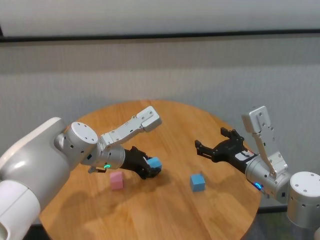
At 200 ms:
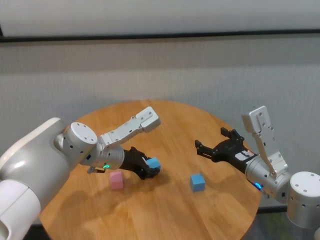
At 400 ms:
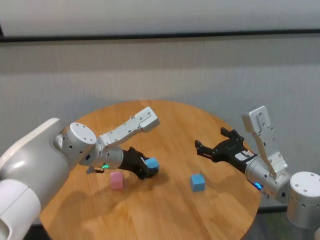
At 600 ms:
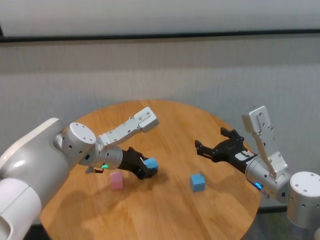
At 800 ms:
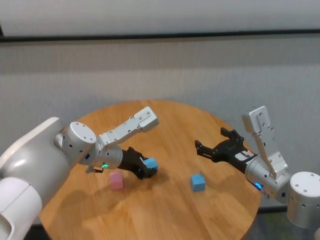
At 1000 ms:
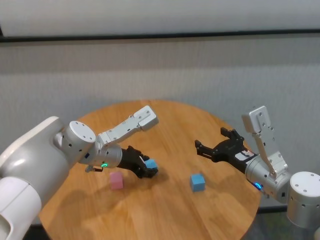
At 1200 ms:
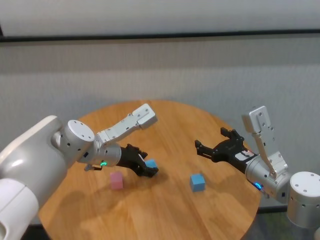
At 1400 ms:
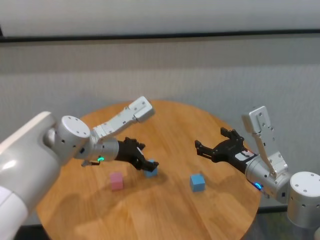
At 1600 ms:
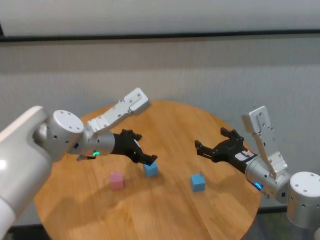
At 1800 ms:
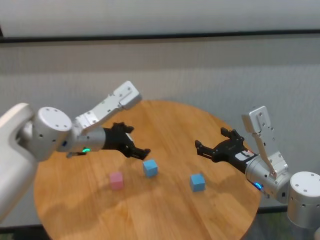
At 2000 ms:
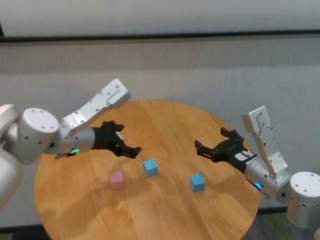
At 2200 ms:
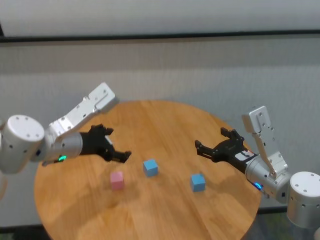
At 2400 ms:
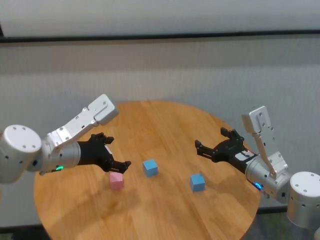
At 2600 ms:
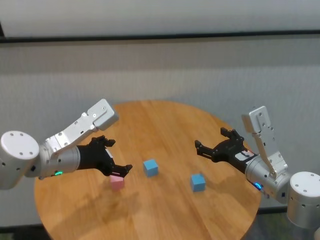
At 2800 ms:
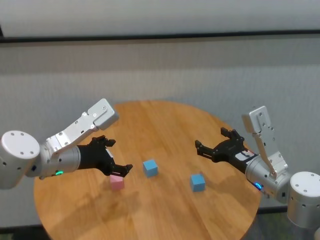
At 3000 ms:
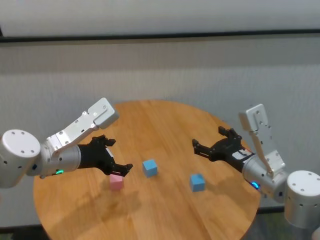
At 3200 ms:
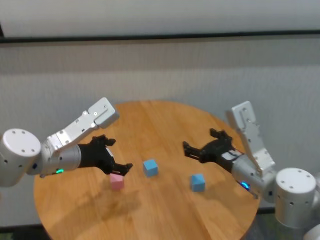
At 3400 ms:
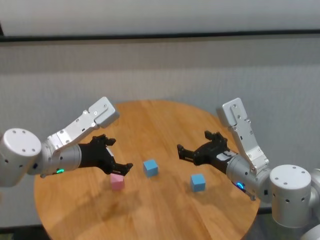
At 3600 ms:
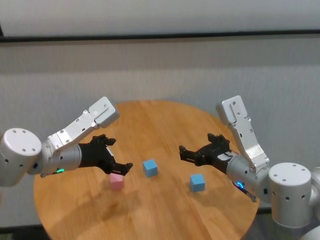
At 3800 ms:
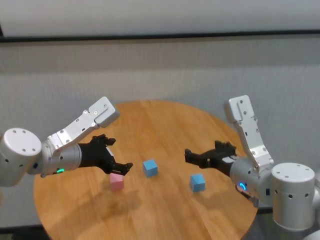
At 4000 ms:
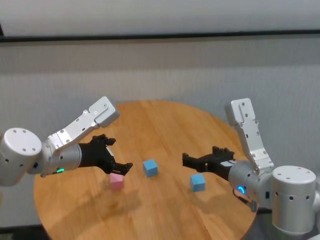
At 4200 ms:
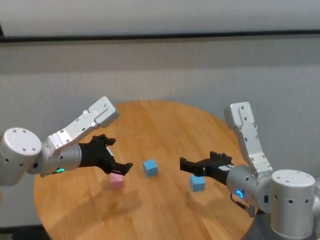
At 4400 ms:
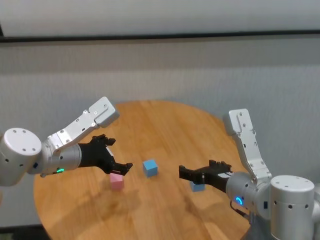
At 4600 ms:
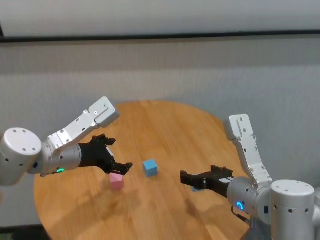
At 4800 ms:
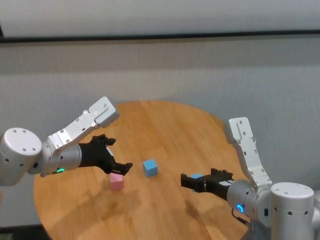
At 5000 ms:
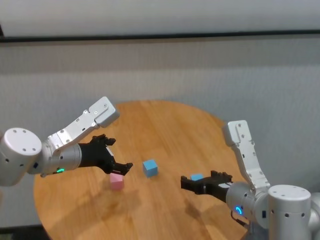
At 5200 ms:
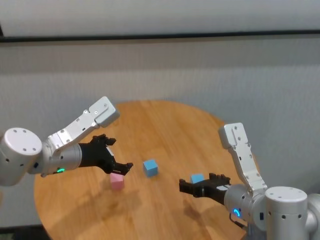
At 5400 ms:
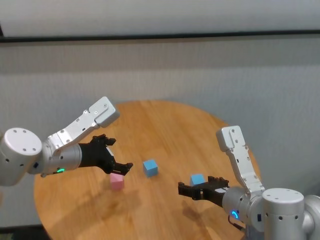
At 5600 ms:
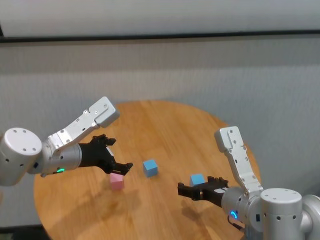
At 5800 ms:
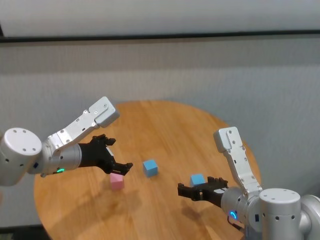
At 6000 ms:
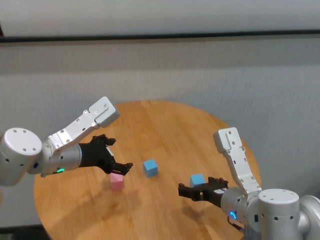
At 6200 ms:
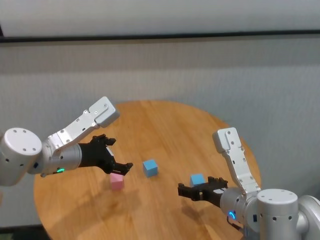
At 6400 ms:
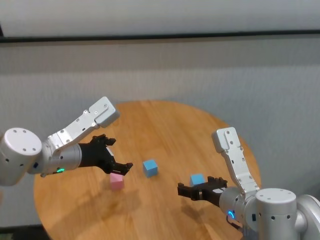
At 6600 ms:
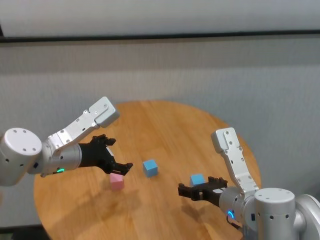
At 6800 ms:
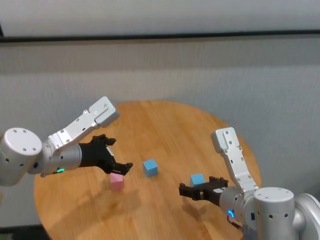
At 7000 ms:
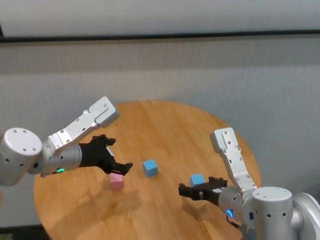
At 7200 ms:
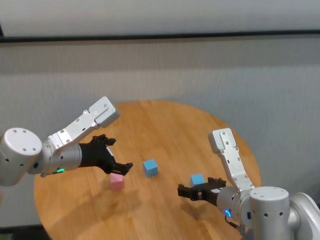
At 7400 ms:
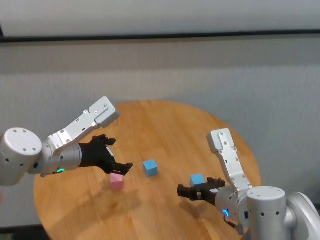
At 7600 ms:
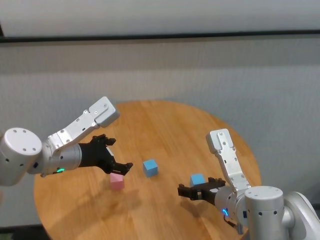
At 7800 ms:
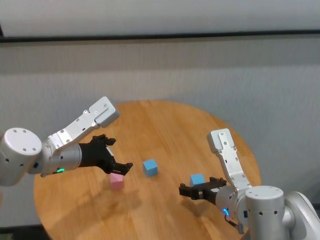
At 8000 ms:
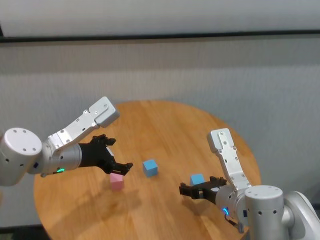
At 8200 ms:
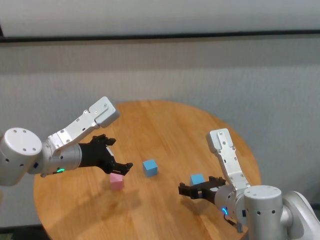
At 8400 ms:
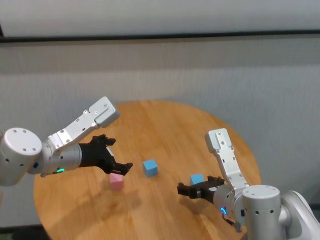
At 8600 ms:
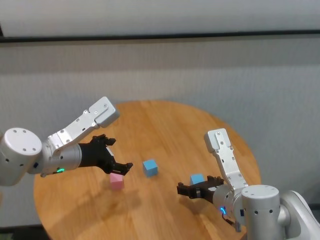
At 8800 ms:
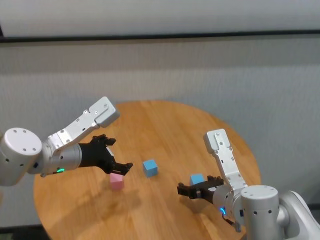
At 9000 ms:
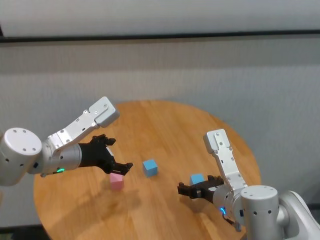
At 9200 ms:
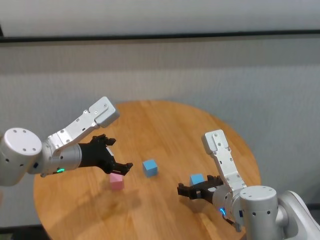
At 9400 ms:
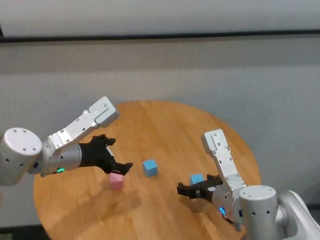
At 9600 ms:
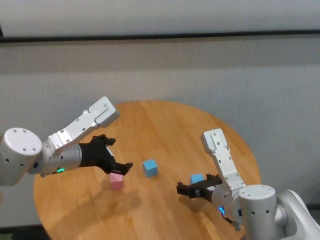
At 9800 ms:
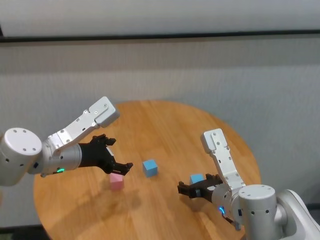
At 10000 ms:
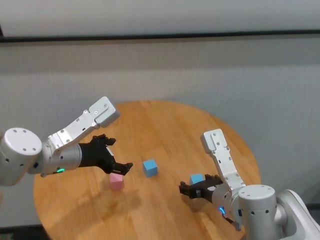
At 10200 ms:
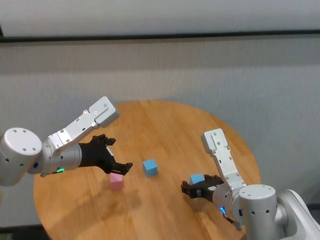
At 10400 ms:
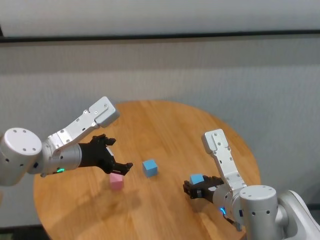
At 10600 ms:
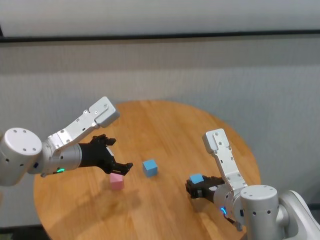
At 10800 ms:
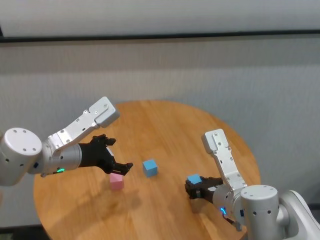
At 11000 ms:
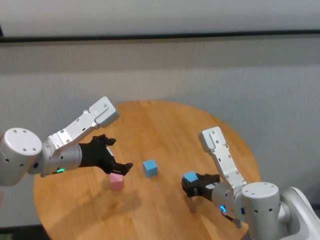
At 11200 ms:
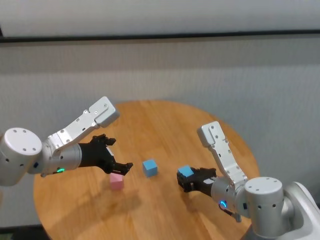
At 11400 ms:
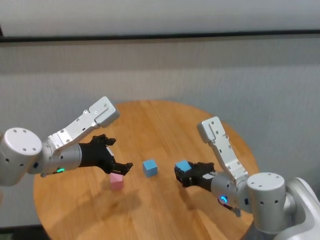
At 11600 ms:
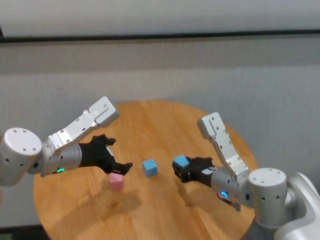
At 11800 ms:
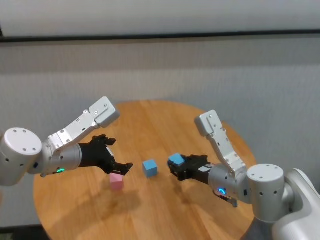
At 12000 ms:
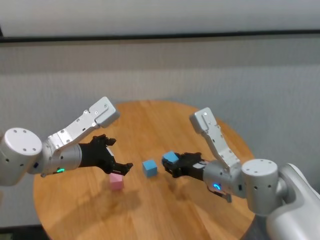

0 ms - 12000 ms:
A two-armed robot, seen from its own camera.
Task of the whole recording: stack building blocks on the table.
Step, 1400 ms - 10600 ms: Grasp the blue building block with right gripper.

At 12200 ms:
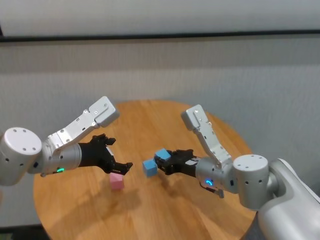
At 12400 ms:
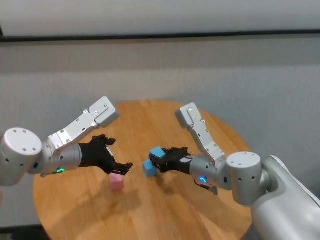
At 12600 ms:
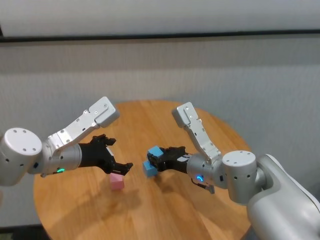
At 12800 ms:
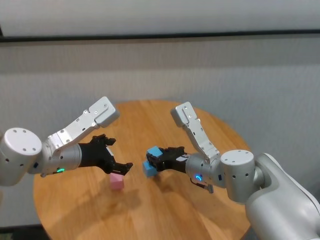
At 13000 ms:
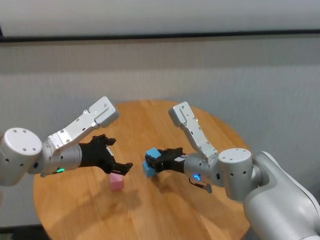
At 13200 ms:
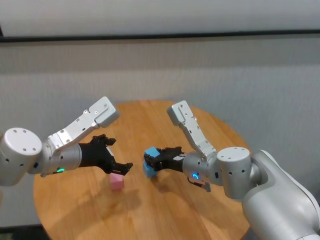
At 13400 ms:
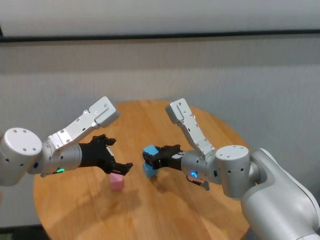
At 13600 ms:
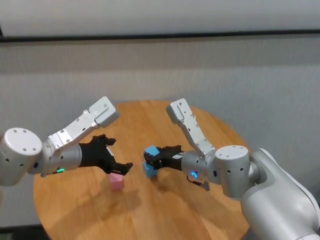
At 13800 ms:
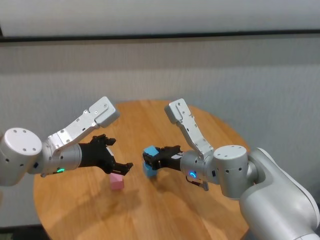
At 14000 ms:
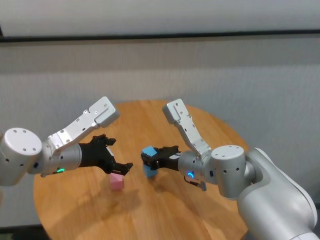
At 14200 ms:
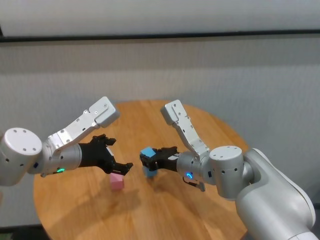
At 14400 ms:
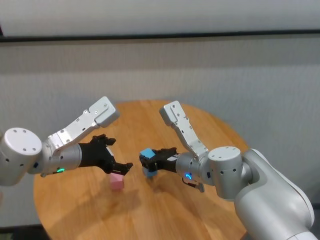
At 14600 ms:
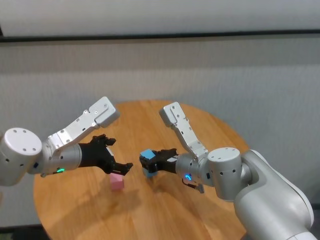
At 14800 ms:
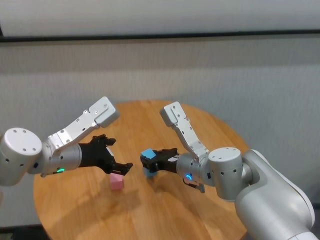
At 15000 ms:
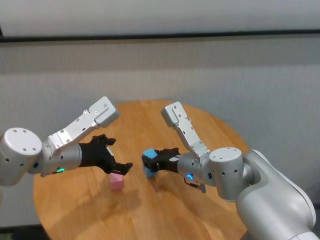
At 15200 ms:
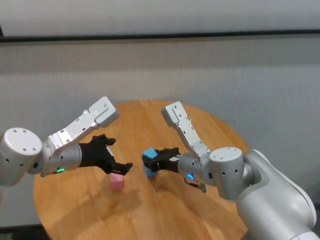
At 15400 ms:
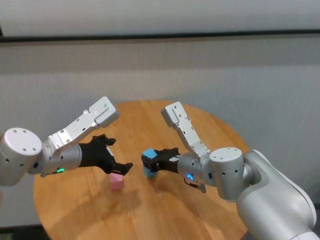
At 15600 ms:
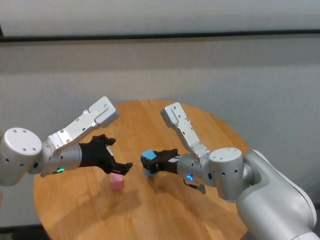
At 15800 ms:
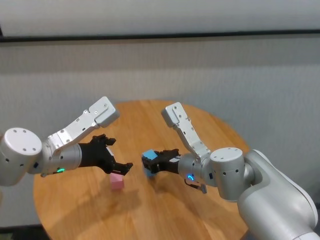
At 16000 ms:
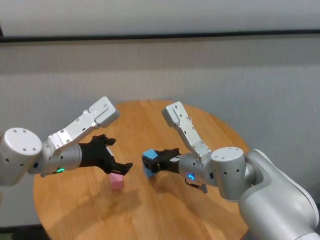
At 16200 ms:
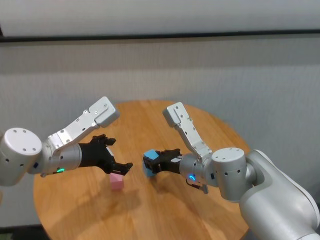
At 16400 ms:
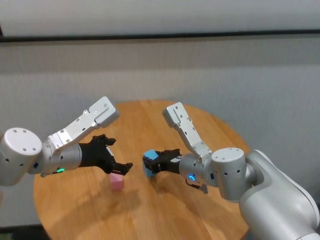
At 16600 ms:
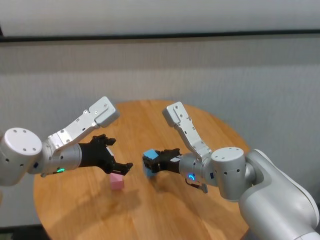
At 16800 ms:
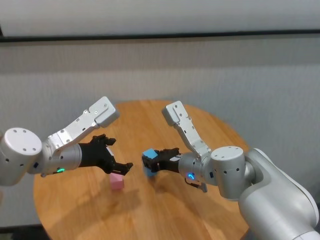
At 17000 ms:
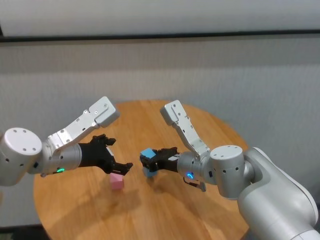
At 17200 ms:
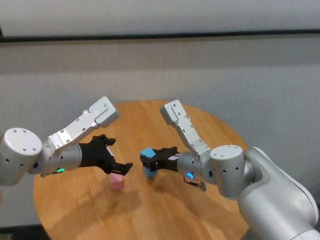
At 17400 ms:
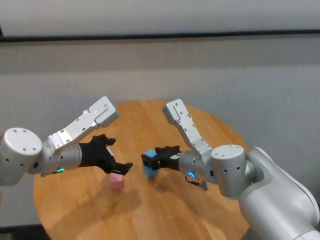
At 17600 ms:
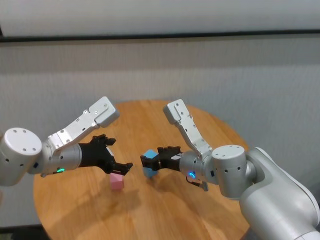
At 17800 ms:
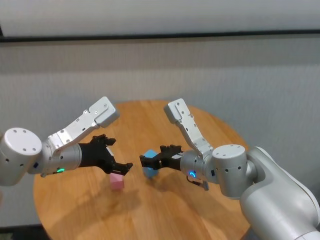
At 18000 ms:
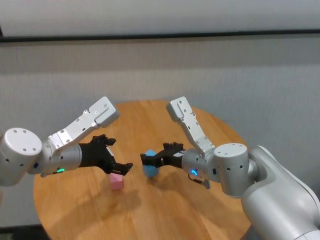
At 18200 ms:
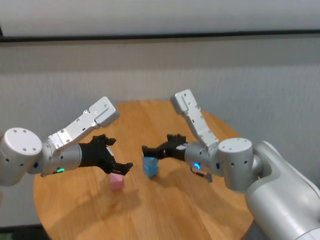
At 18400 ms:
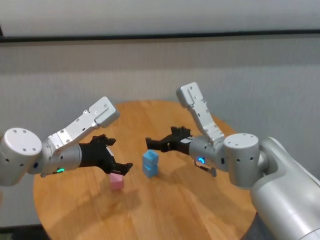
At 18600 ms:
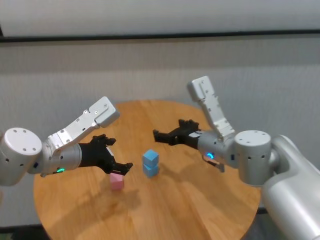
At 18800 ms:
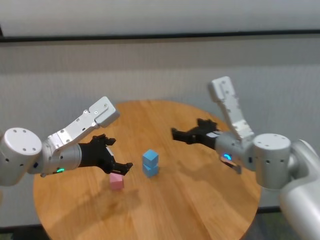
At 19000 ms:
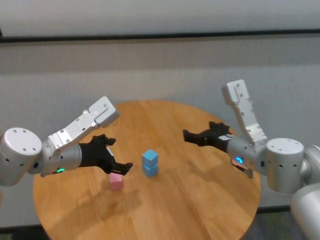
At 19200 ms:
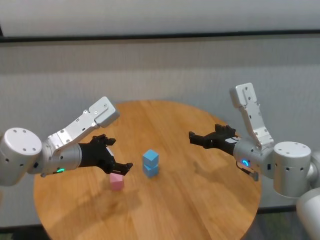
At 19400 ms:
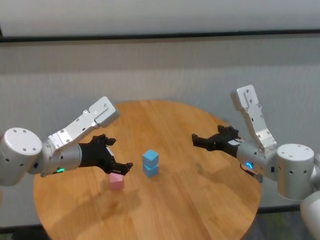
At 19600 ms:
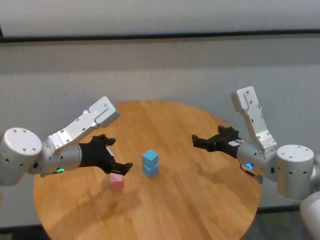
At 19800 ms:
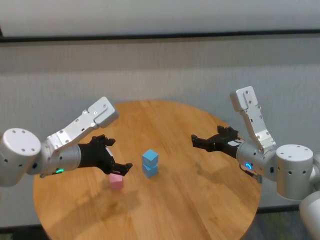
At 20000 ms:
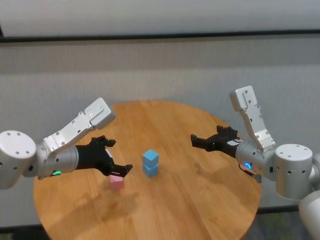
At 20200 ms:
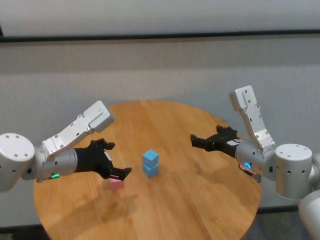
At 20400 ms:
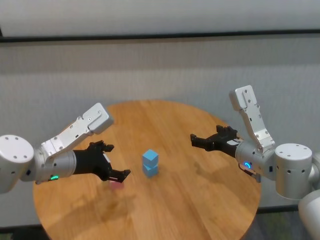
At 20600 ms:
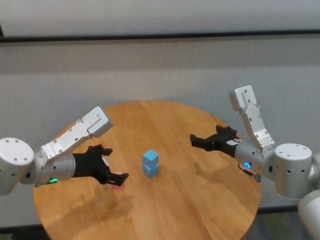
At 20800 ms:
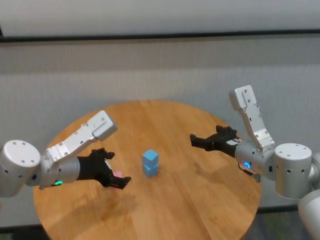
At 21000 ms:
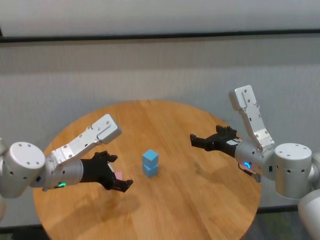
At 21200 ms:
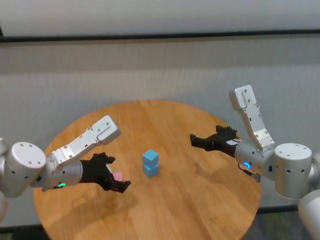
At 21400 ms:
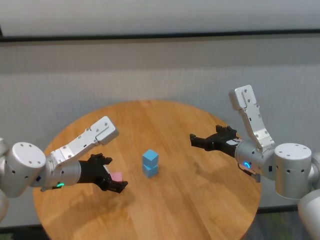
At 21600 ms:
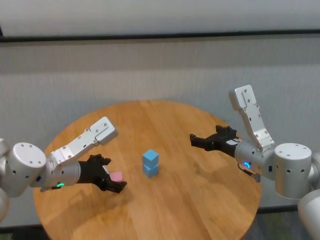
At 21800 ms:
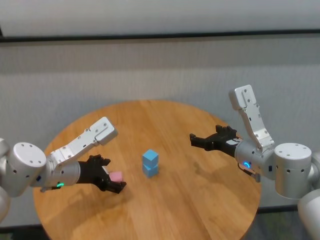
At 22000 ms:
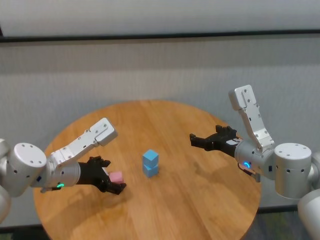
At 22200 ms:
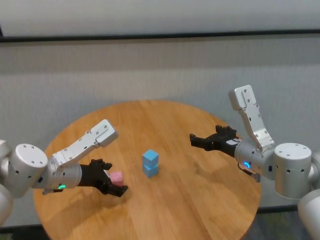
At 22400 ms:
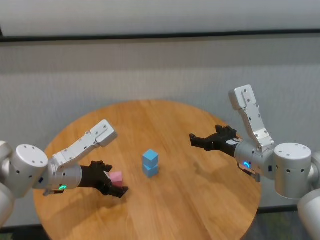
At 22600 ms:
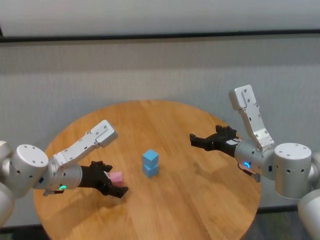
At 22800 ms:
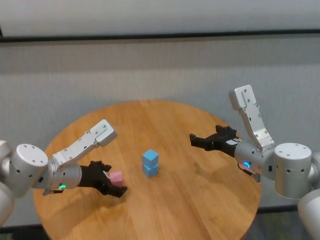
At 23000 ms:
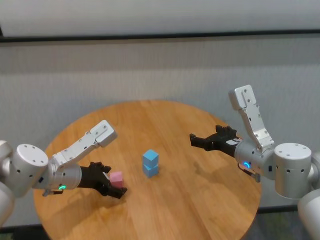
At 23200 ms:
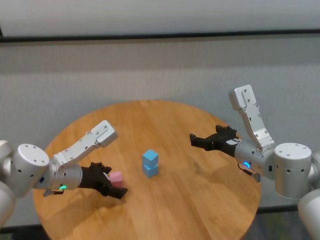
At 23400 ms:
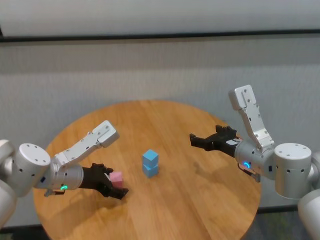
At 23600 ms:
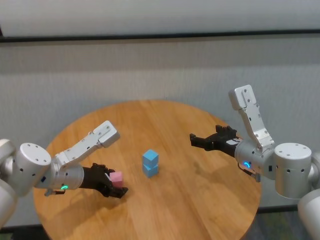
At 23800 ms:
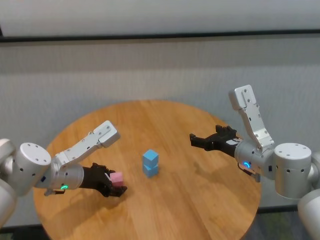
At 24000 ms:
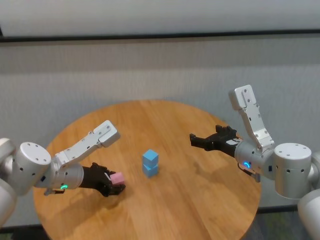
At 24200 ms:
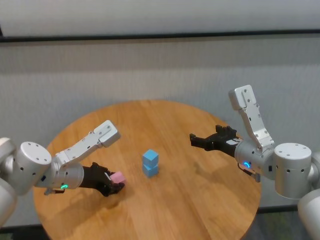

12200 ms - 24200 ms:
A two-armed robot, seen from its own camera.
Task of the whole recording: stack building blocks on the table.
Step, 12200 ms - 17600 ms: Place the blue building block on the blue building blocks with right gripper.
Step, 17800 ms - 24000 ms: Grasp the pink building block with left gripper.
